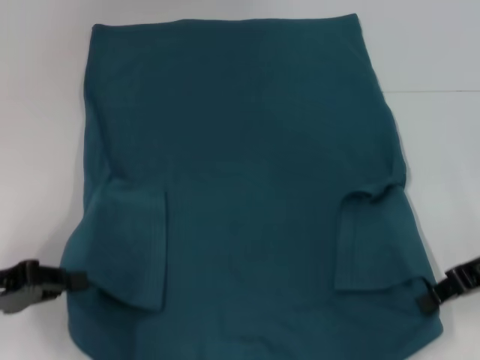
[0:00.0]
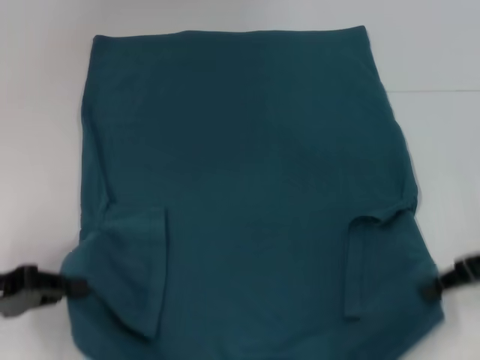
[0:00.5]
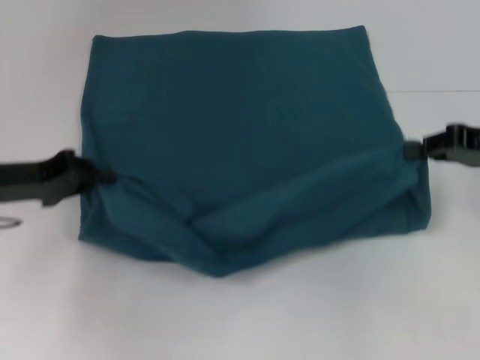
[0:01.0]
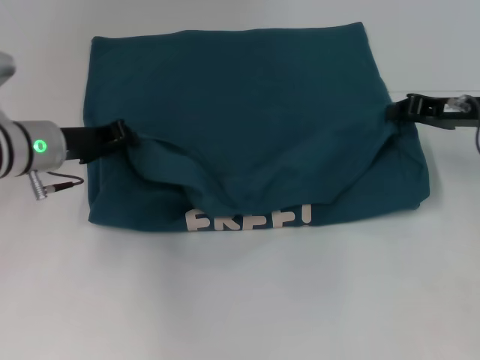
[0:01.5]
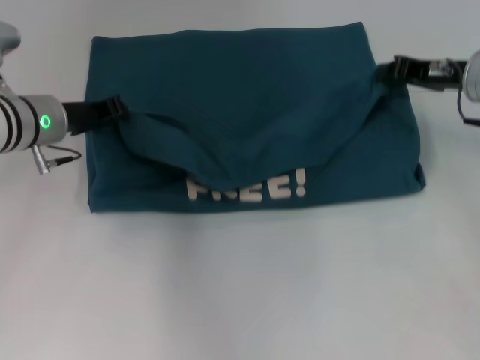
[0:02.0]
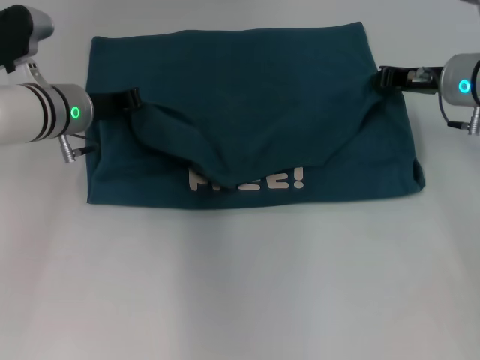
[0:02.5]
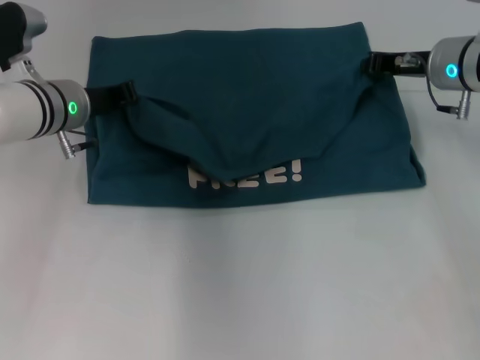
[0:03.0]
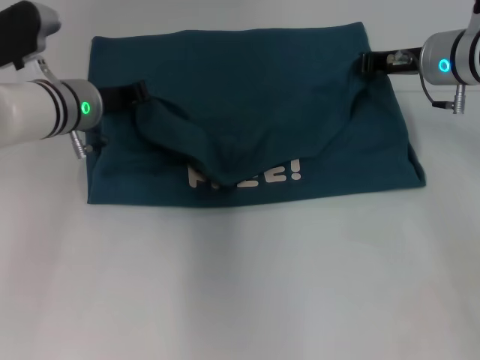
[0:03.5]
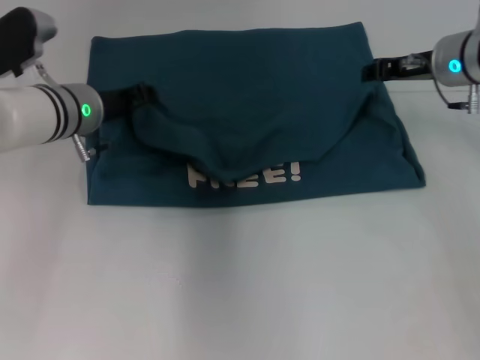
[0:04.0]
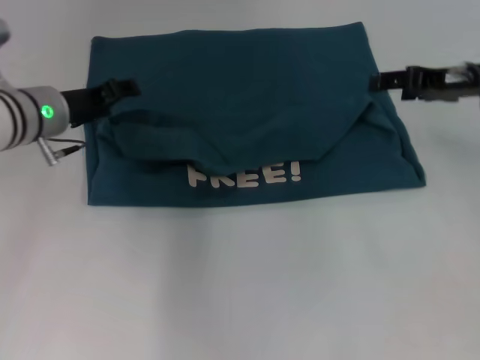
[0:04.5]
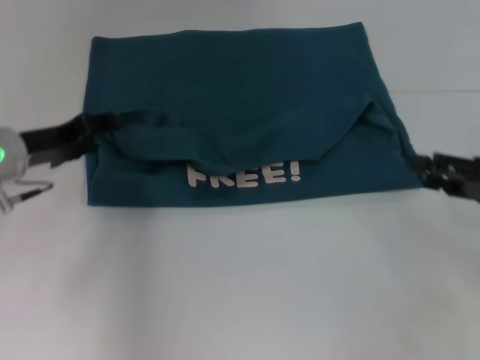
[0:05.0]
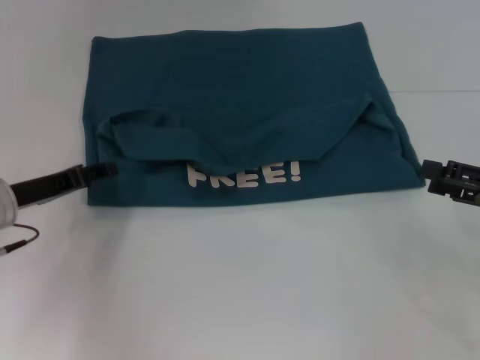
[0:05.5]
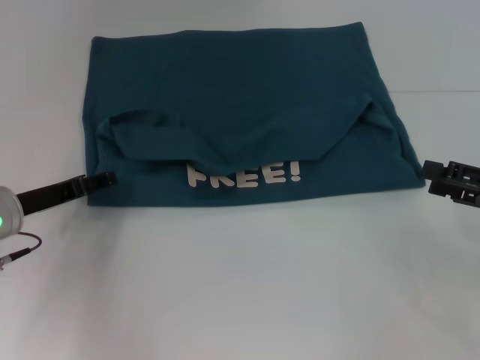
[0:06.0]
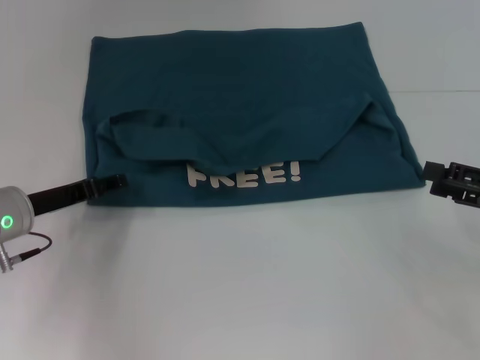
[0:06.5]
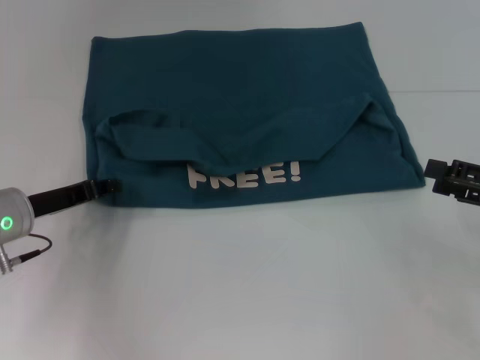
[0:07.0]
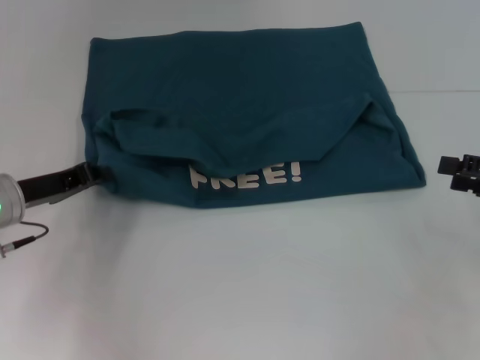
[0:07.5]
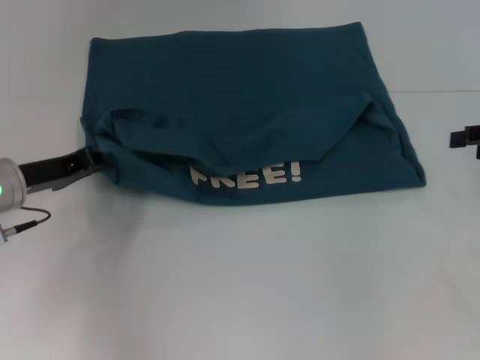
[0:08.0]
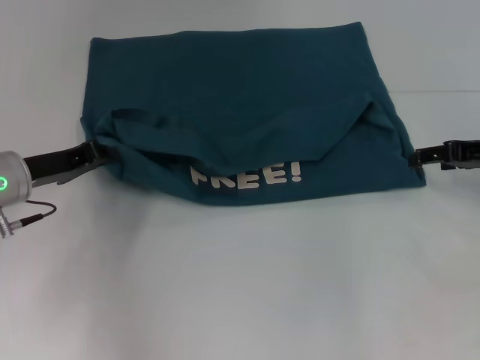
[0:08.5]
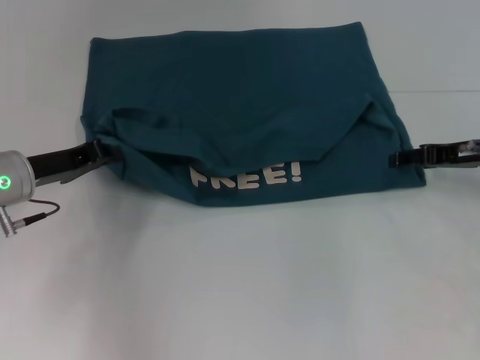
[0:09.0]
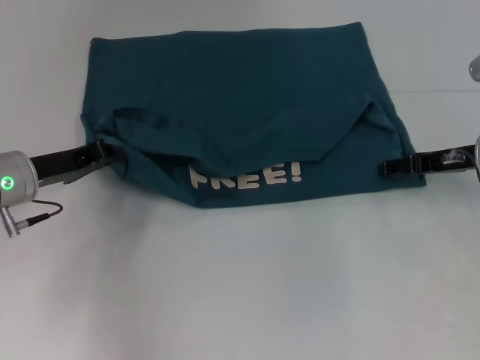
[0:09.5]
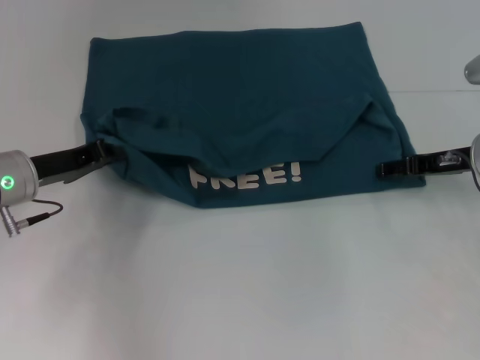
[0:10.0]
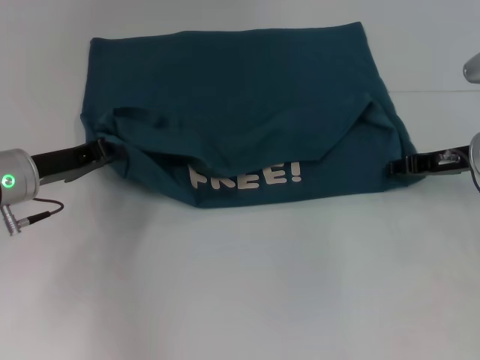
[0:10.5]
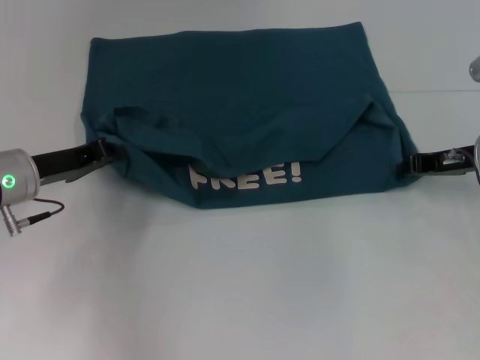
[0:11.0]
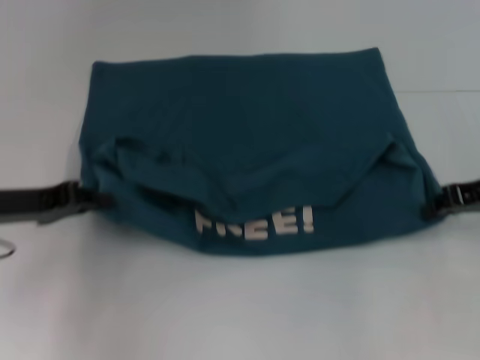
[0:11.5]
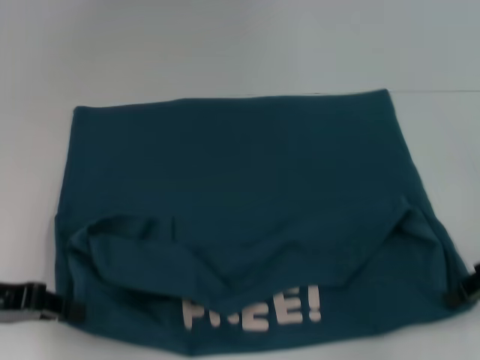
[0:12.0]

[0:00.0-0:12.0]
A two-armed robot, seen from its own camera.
Step, 0:00.0 to 0:04.5: Fold the clothes to the left.
Step, 0:00.0 to 0:04.5: Fold the clothes to the right.
0:00.0 to 0:02.0: The right gripper is displaced forward by roughly 10 cm. The left gripper heads forward and to the right, covering approximately 20 cm.
0:02.0 to 0:04.0: The grippers stay close to where they were, moving slightly.
0:04.0 to 0:06.0: The right gripper heads backward and to the right, covering some 20 cm, and opens up. The left gripper is displaced backward, to the left and downward by some 15 cm, and opens its fingers.
0:06.0 to 0:08.0: The left gripper closes. Meanwhile the right gripper moves forward and upward, about 10 cm.
0:08.0 to 0:10.0: The right gripper goes roughly 10 cm to the left and downward.
0:10.0 to 0:12.0: The right gripper heads backward and to the right, covering roughly 10 cm, and closes its fingers. The left gripper goes some 10 cm backward and to the left.

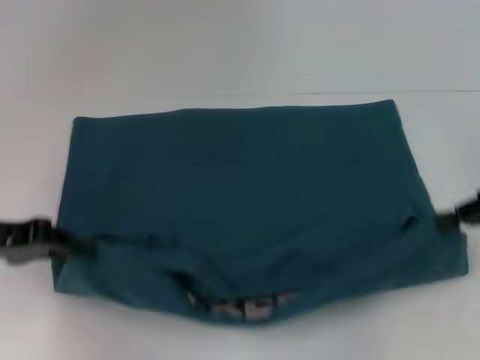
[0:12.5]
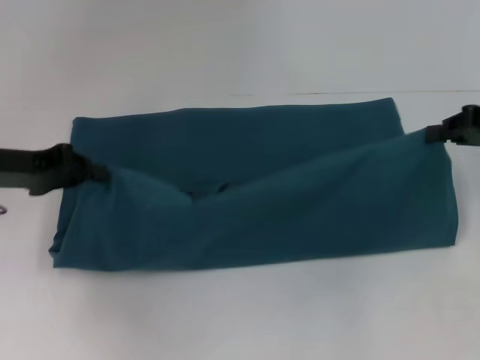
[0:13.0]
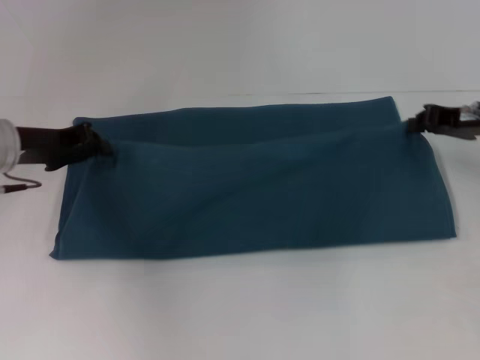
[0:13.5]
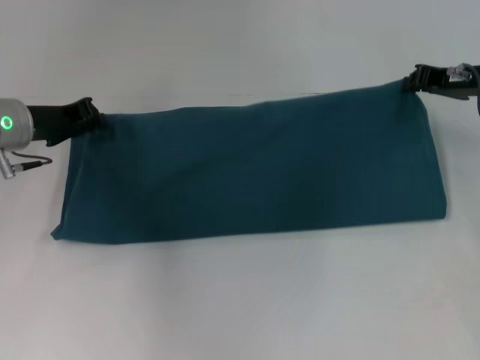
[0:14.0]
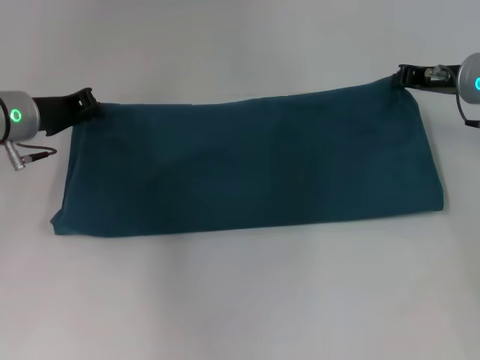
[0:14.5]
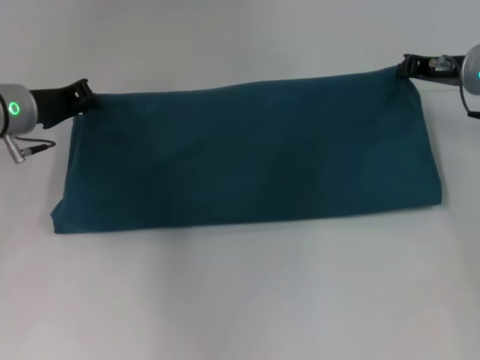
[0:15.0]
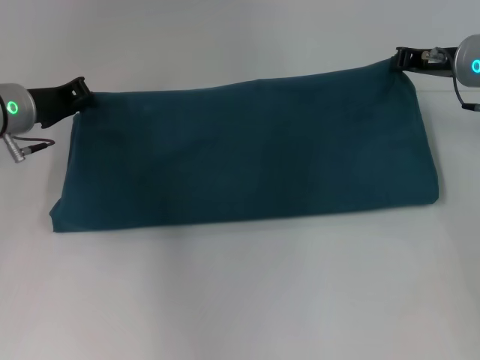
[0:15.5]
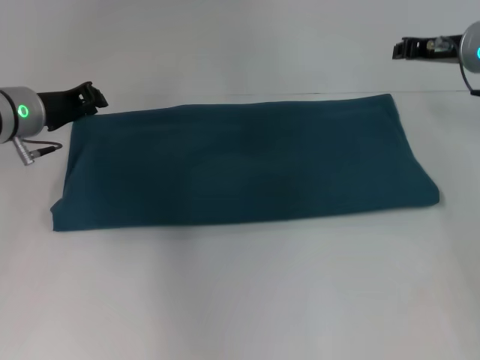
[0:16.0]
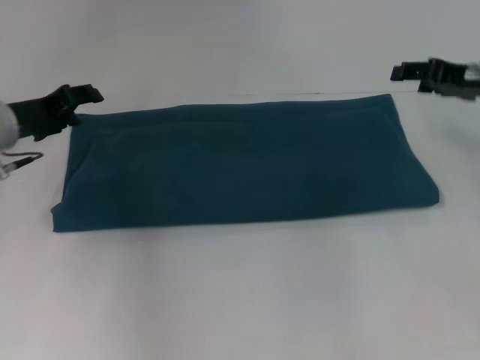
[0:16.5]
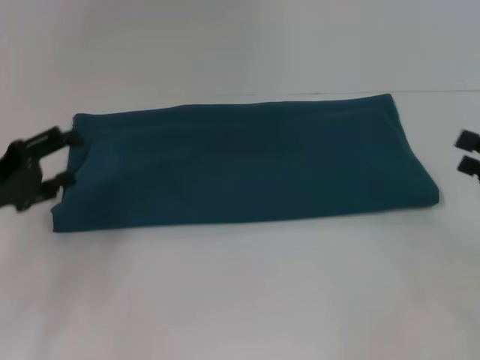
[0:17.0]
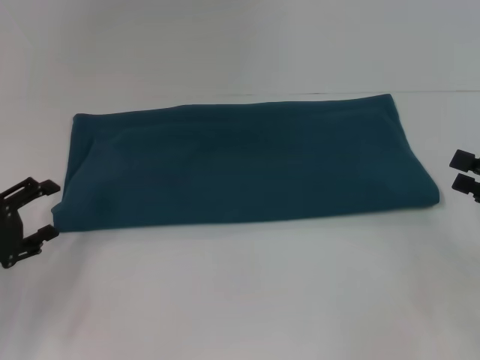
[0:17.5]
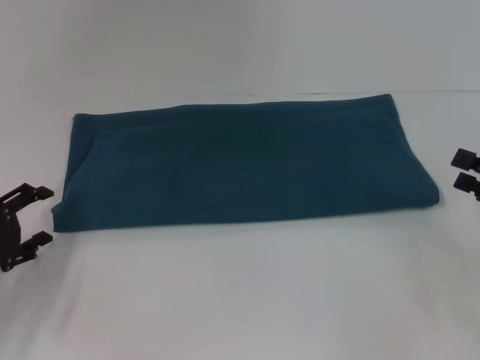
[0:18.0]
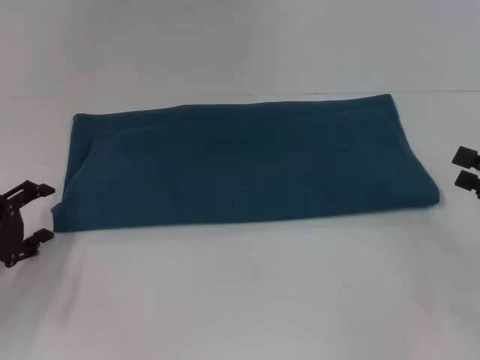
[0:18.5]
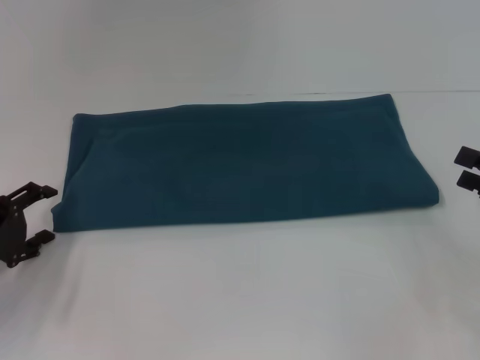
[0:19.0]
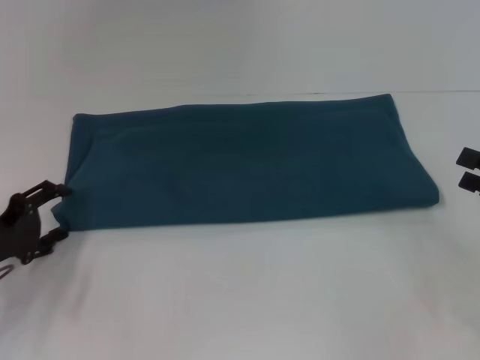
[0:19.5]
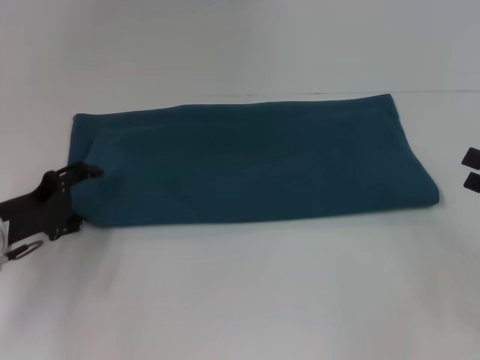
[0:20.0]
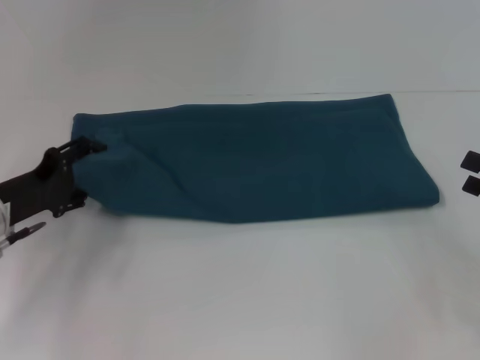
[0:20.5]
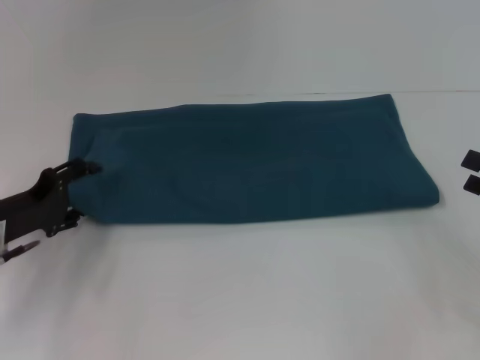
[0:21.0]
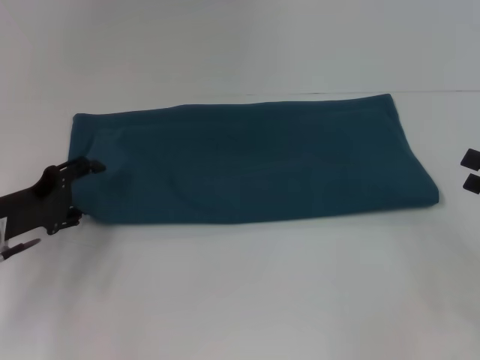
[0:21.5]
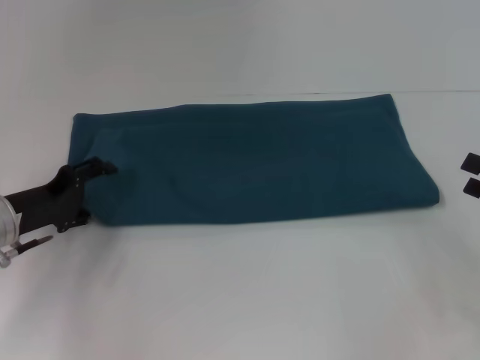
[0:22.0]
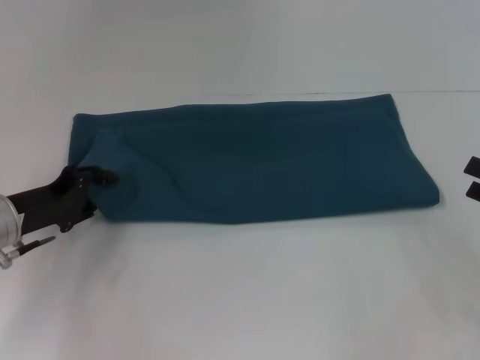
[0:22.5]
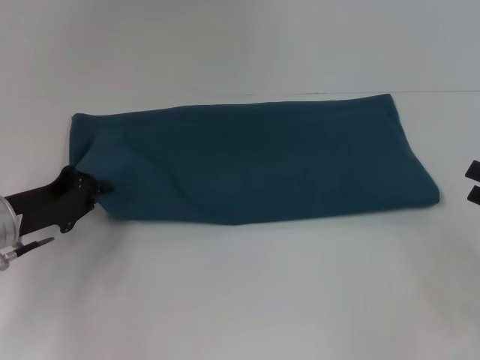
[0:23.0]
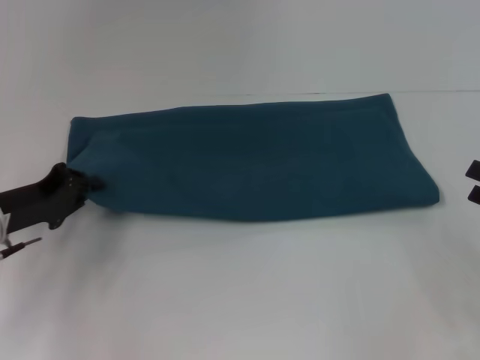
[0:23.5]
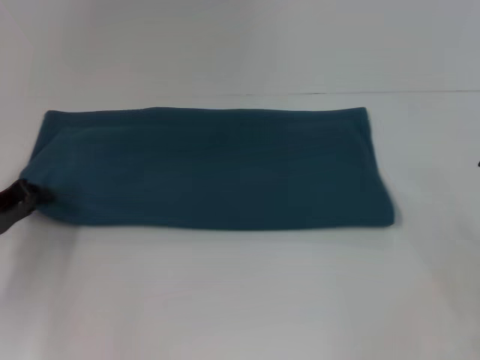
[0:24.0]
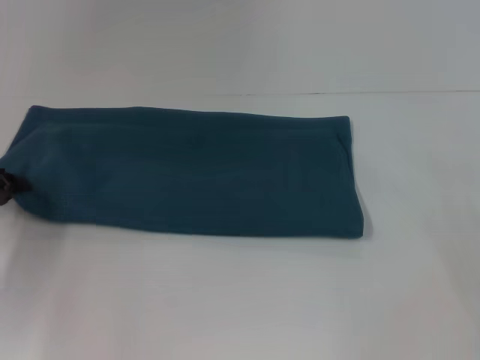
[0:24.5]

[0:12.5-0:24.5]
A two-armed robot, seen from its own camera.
Step, 0:12.5 to 0:16.0: Fold the clothes to the right.
0:12.5 to 0:14.5: The left gripper is displaced forward and to the right by approximately 15 cm. Meanwhile the right gripper goes roughly 15 cm forward and to the left.
0:14.5 to 0:16.5: The right gripper changes place by approximately 5 cm, and opens up; the left gripper opens up.
0:16.5 to 0:18.5: The right gripper heads backward, to the right and downward, covering approximately 15 cm, while the left gripper moves backward, downward and to the left, about 15 cm, and opens up.
0:18.5 to 0:20.5: The left gripper ends up some 5 cm from where it was.
0:20.5 to 0:22.5: There are only small adjustments of the grippers.
0:22.5 to 0:24.5: The left gripper is displaced to the left by roughly 5 cm, and closes its fingers.

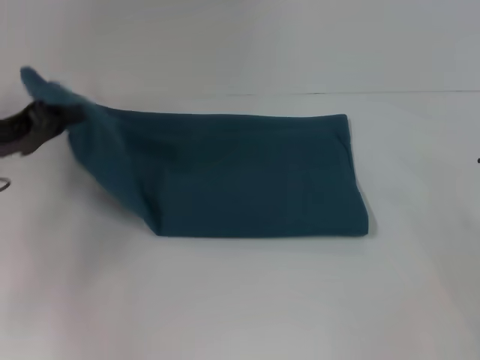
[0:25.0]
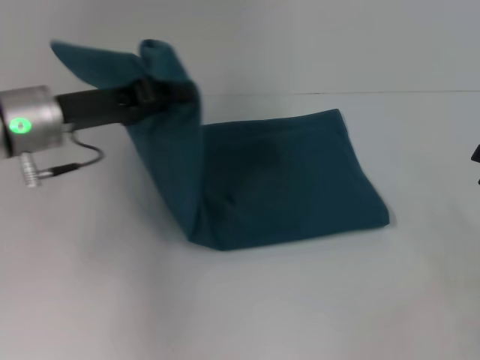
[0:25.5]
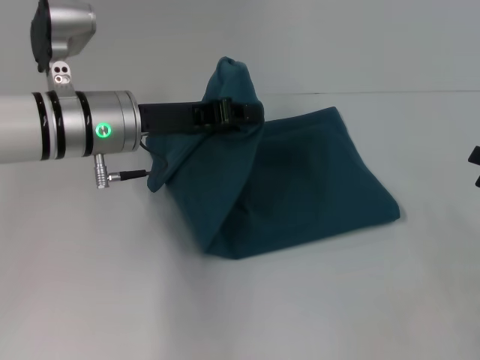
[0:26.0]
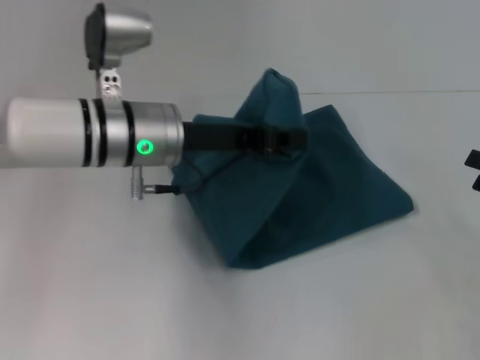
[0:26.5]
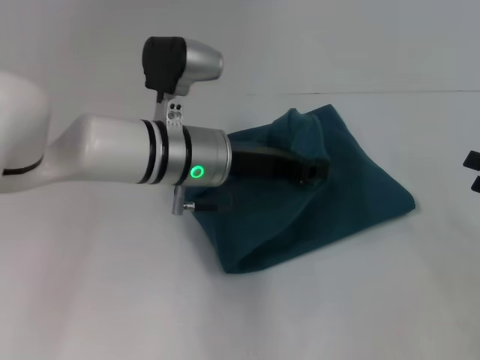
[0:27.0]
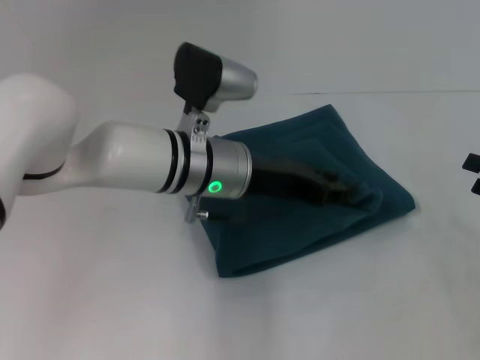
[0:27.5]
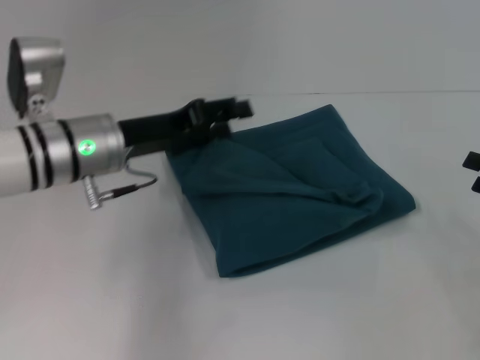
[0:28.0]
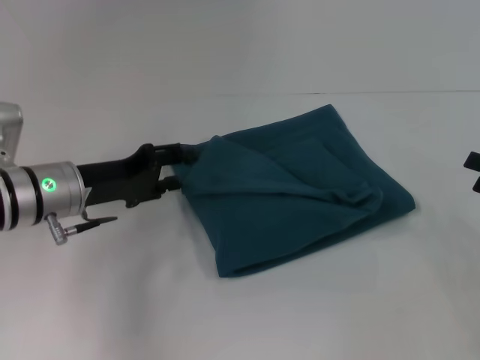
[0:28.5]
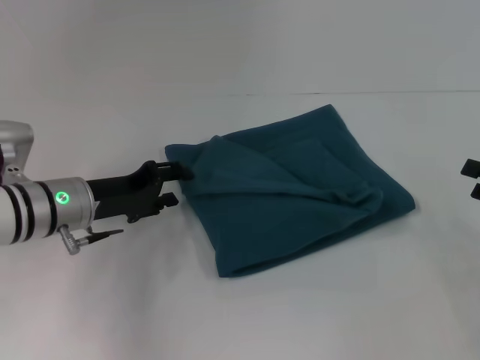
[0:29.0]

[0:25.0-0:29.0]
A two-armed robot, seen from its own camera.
0:25.0 to 0:27.0: The left gripper goes some 25 cm to the right.
0:27.0 to 0:29.0: The left gripper travels to the left and downward by some 15 cm, and opens its fingers.
